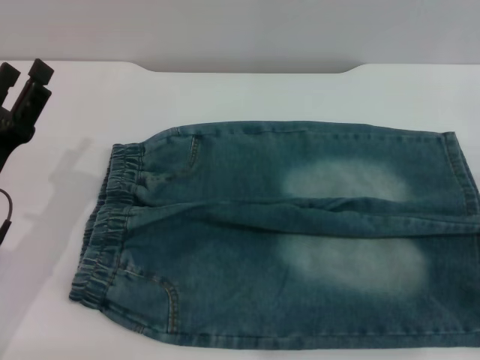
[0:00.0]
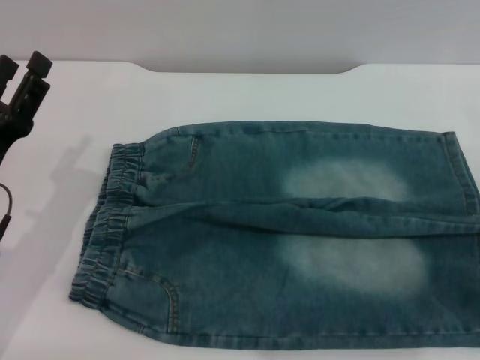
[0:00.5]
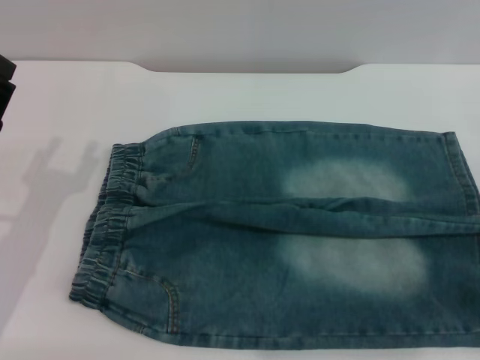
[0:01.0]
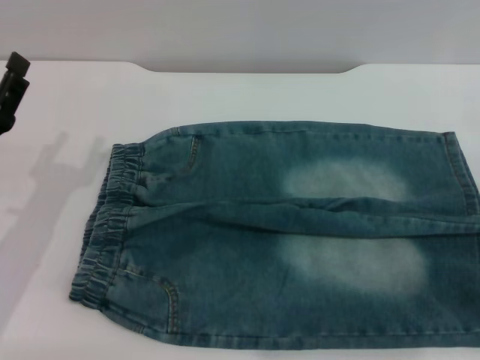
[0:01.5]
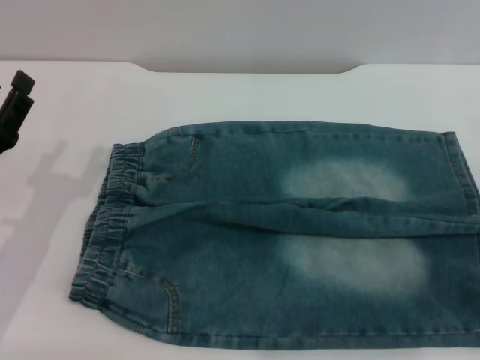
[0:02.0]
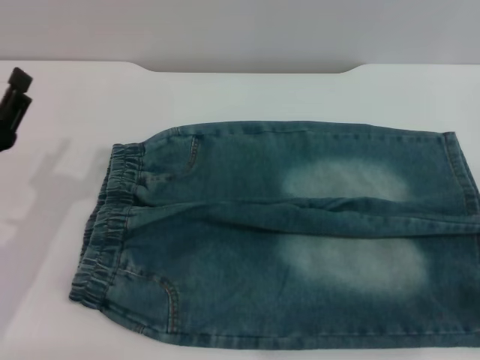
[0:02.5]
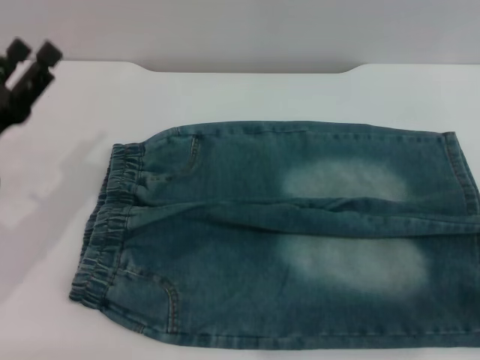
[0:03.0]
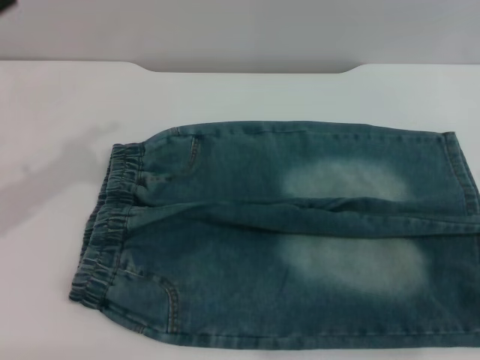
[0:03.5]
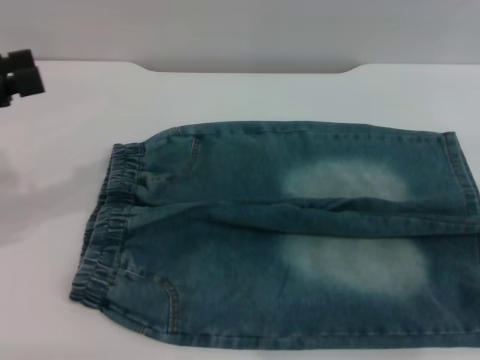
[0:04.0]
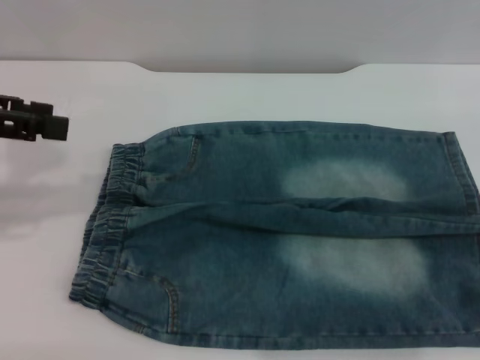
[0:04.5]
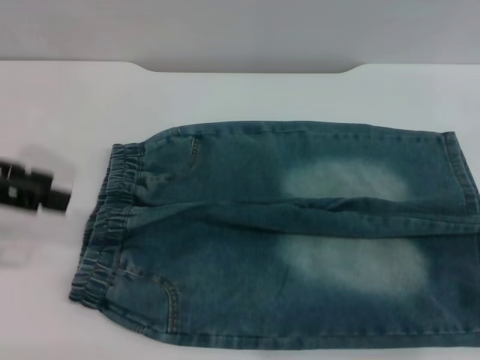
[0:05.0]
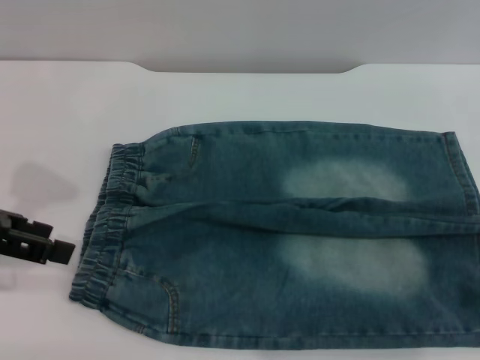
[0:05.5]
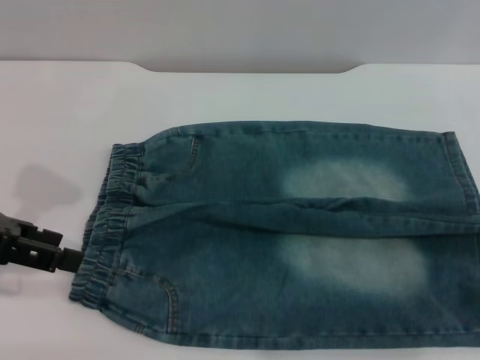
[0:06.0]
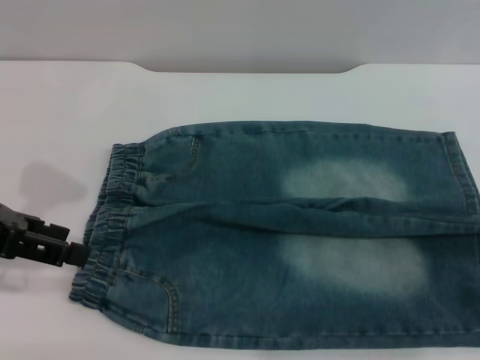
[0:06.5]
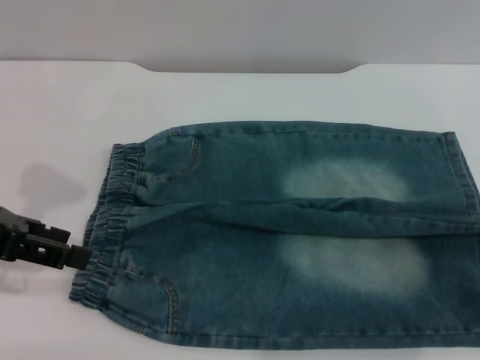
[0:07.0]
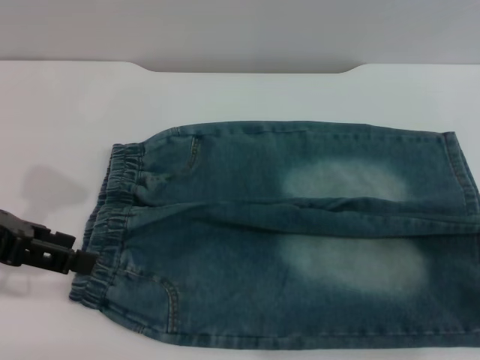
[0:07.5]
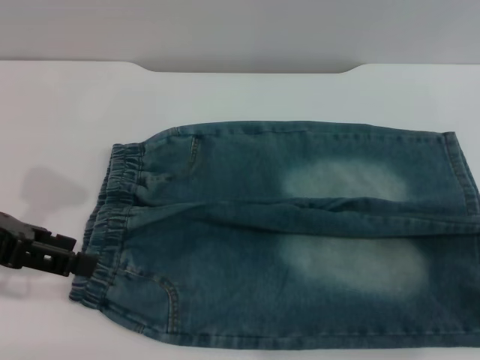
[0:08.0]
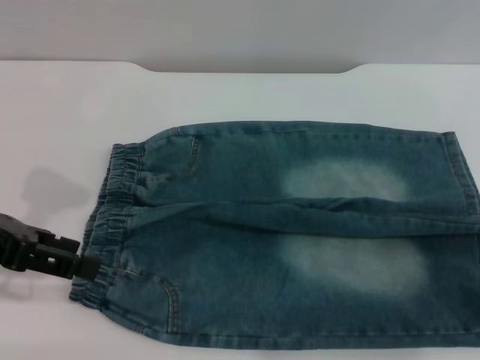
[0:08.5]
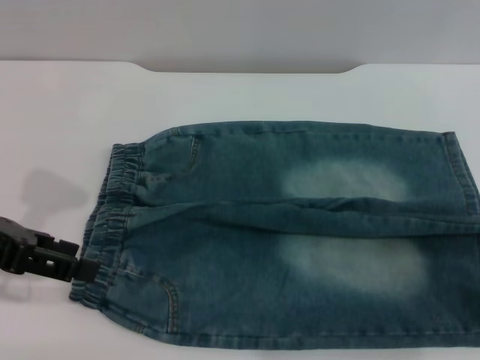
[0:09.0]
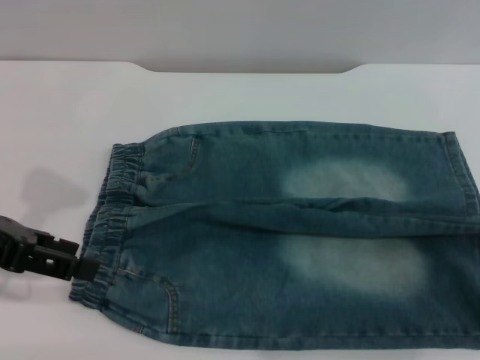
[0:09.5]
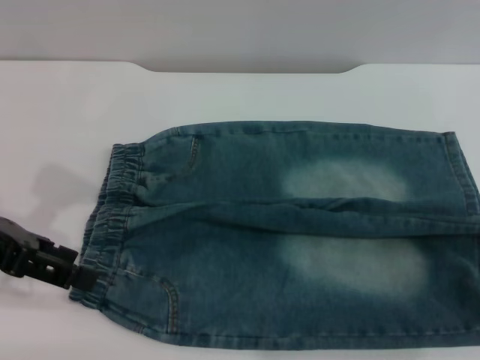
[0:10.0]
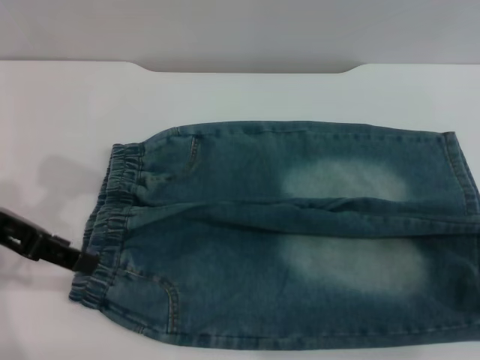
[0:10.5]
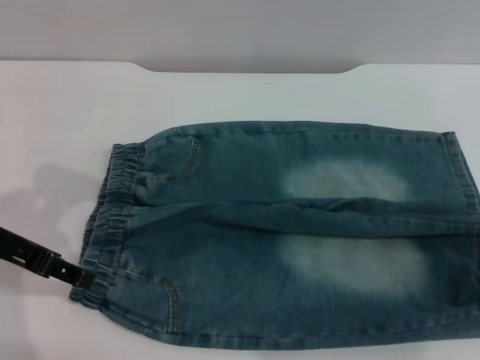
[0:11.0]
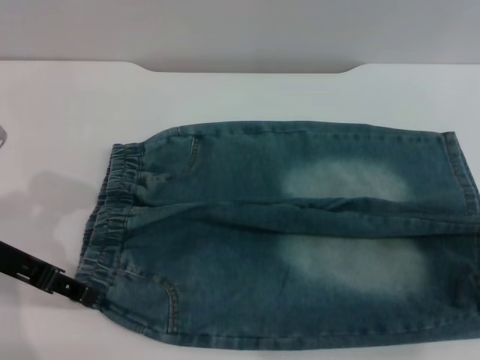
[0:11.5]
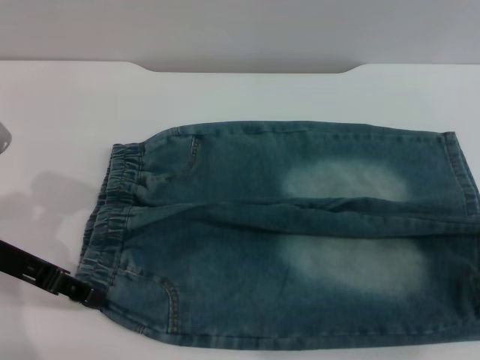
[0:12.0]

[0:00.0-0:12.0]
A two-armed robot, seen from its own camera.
0:00.0 to 0:02.0: The grippers stay close to where they were, moving slightly.
0:02.0 to 0:04.0: The left gripper is displaced upward and to the left by about 20 cm.
0:10.0 to 0:12.0: The left gripper heads downward, covering about 5 cm.

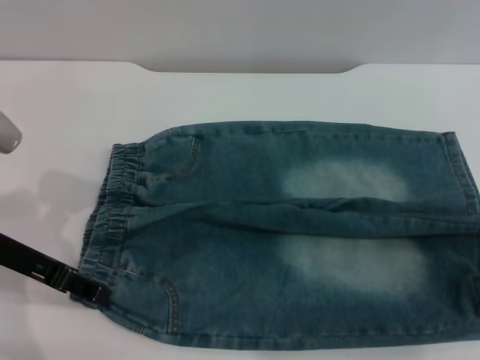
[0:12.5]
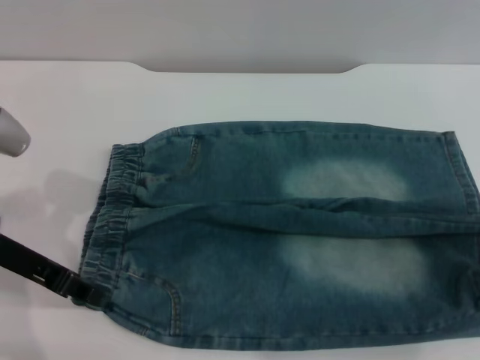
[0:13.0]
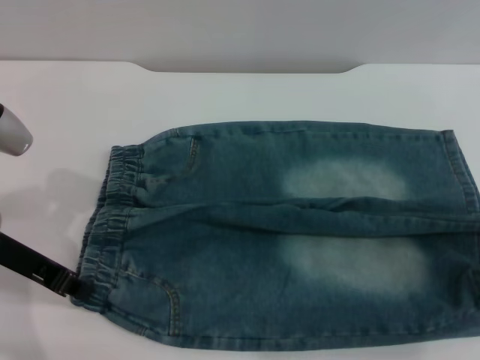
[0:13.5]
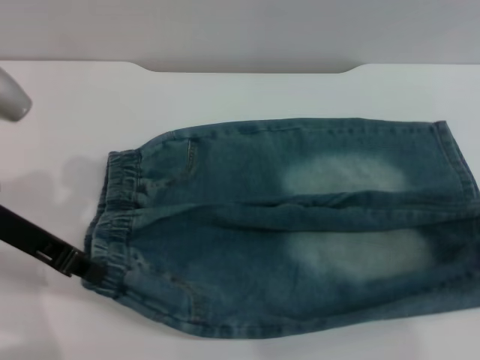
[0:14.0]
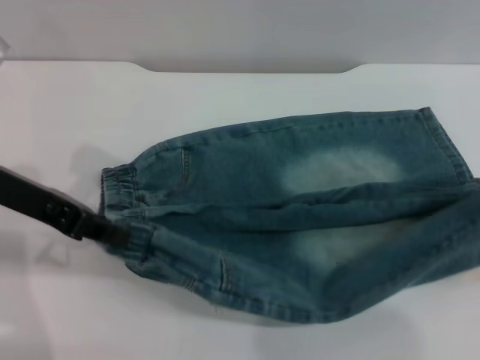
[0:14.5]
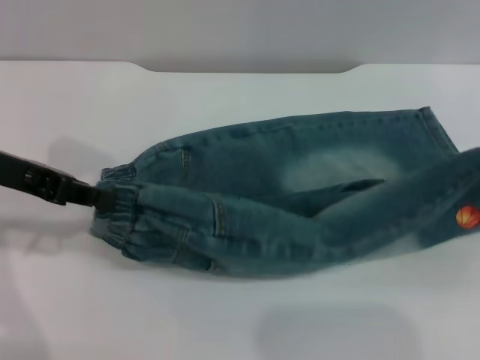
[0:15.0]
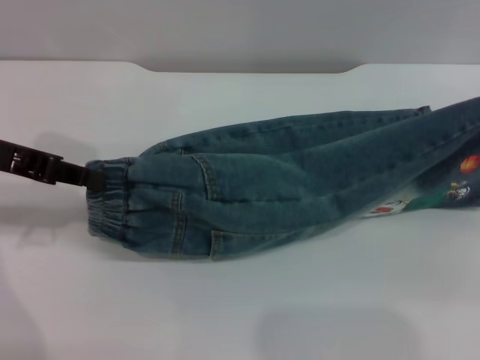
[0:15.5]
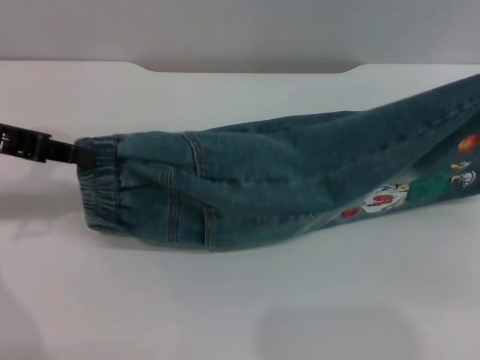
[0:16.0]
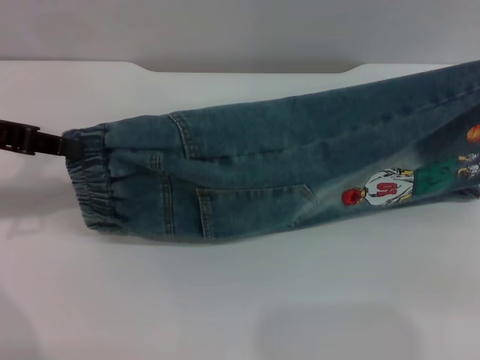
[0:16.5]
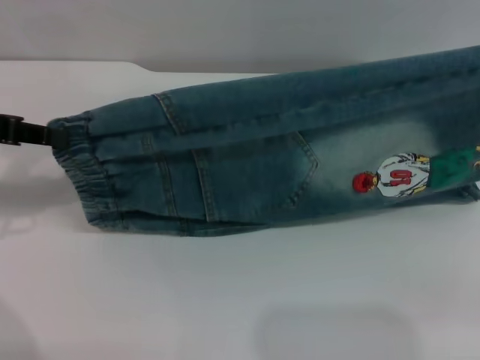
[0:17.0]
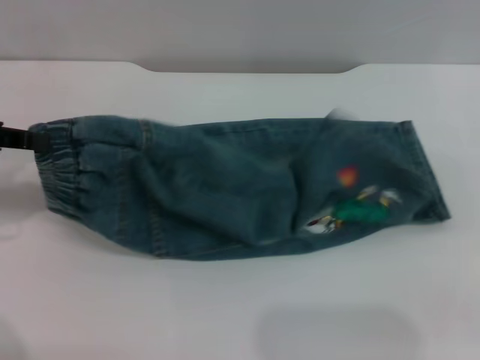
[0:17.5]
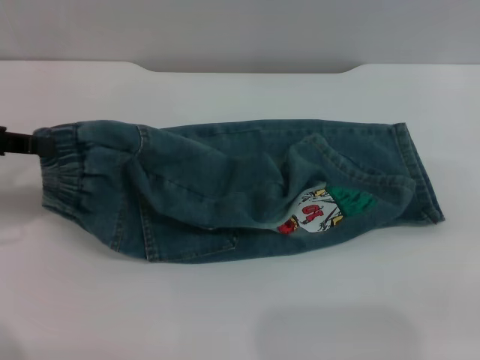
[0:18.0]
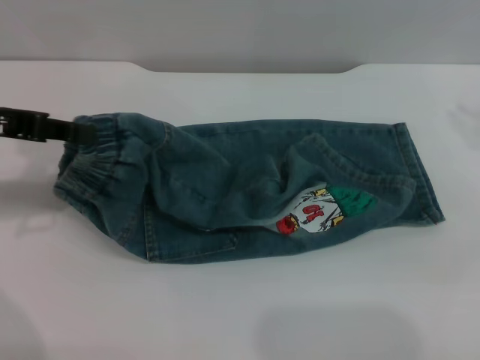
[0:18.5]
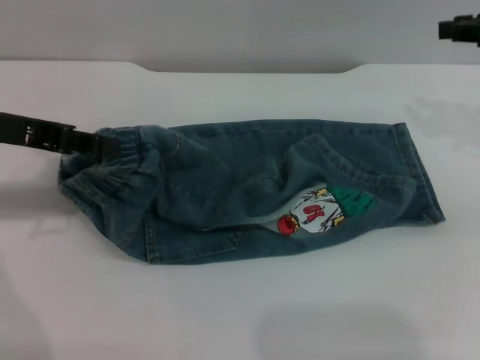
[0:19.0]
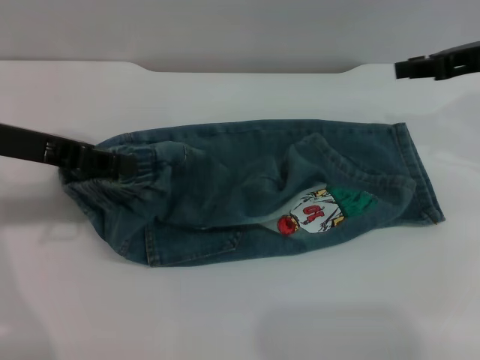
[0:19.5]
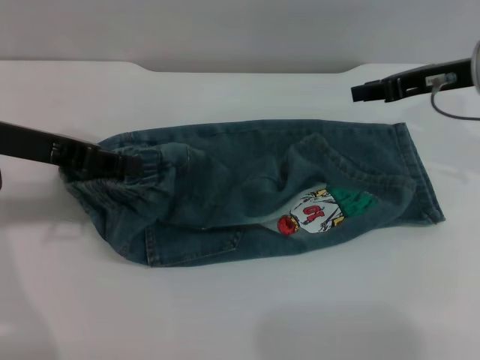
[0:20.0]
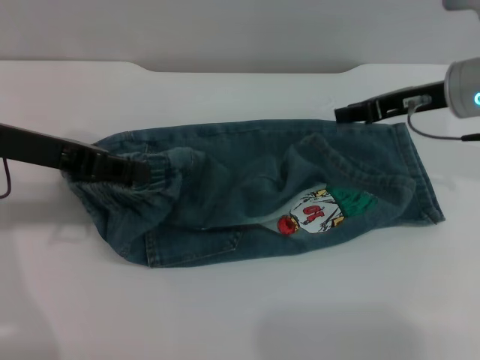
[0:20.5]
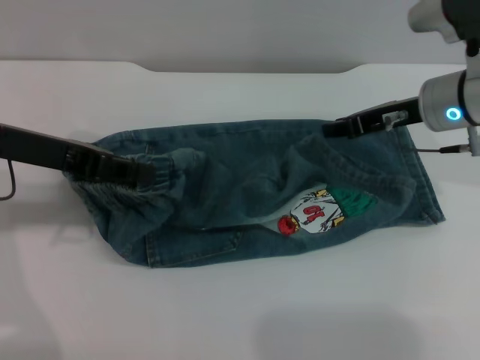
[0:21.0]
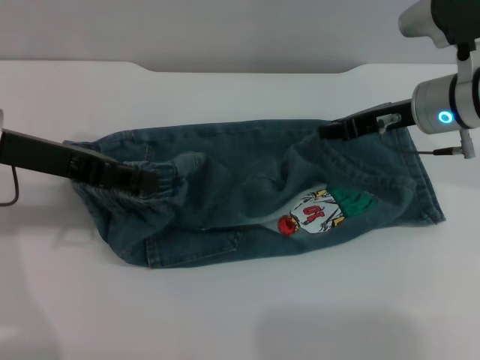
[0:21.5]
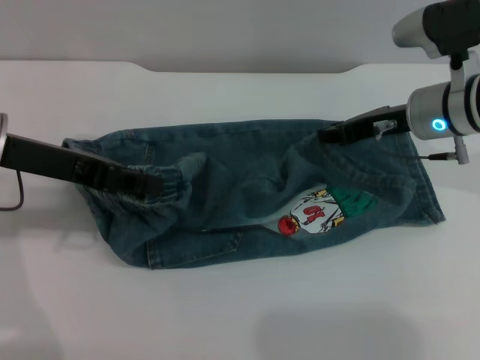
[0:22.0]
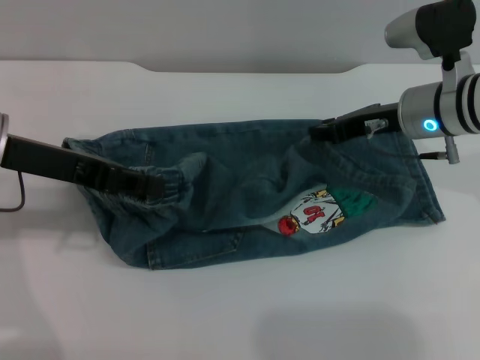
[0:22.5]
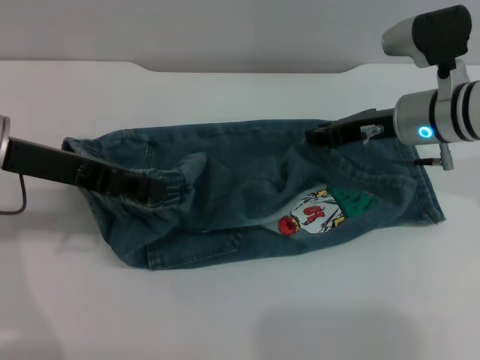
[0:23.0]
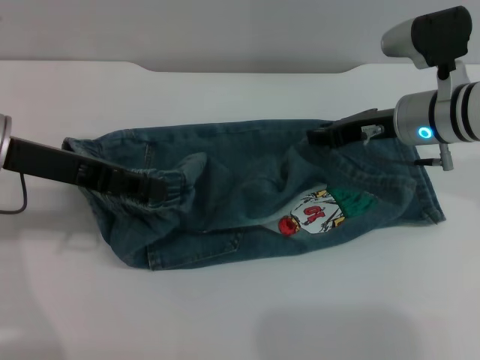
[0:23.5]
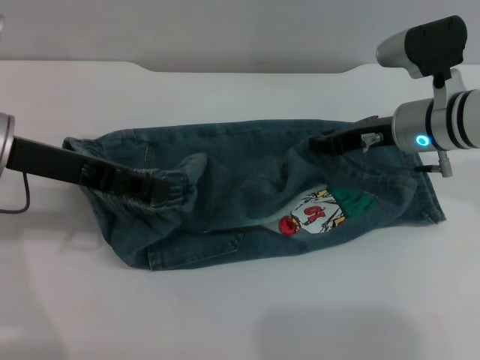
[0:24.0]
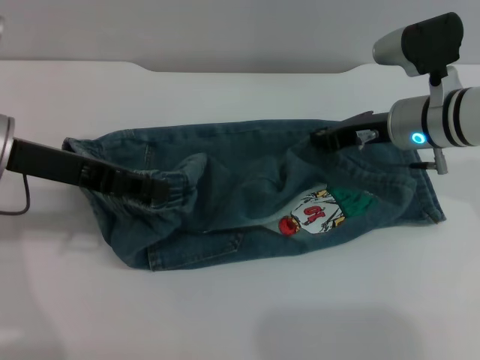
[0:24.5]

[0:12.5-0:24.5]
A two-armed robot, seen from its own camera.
0:12.5 to 0:14.5: The left gripper goes roughly 5 cm upward, and closes its fingers. The right gripper changes place by approximately 5 cm.
0:14.5 to 0:16.5: The left gripper moves to the left, some 5 cm. Meanwhile the right gripper heads upward, covering some 10 cm.
0:18.5 to 0:20.5: The right gripper is displaced to the left, downward and forward by some 15 cm.
0:20.5 to 0:22.5: The right gripper ends up some 5 cm from where it was.
0:22.5 to 0:24.5: The grippers make only small movements.

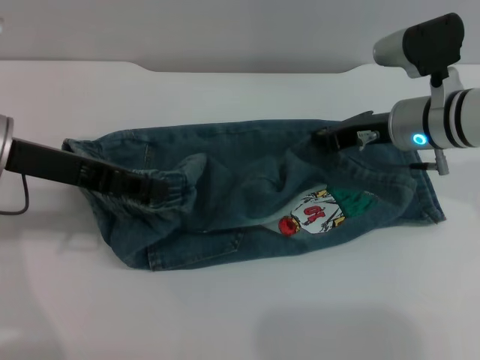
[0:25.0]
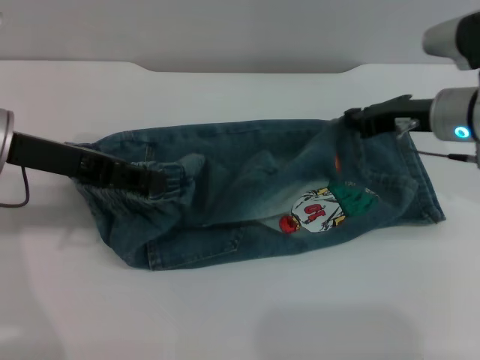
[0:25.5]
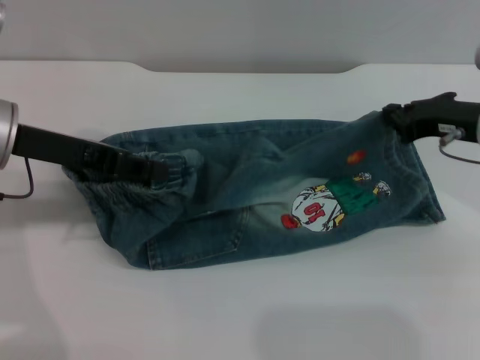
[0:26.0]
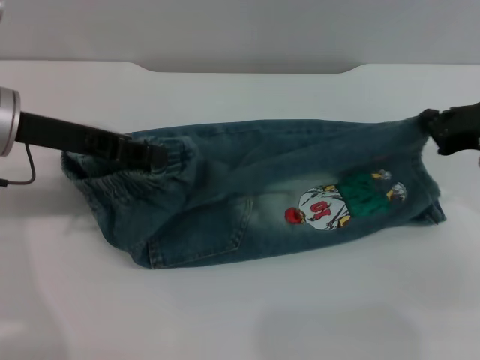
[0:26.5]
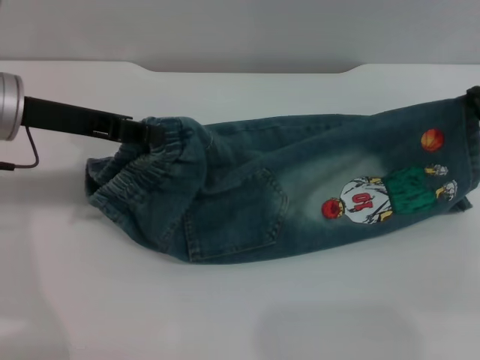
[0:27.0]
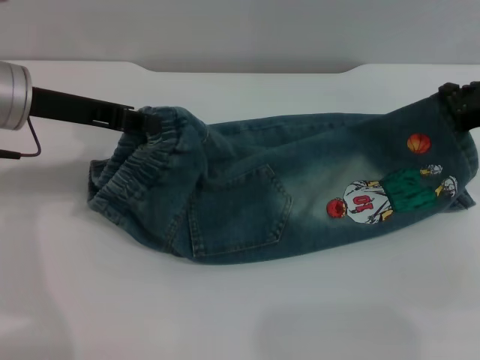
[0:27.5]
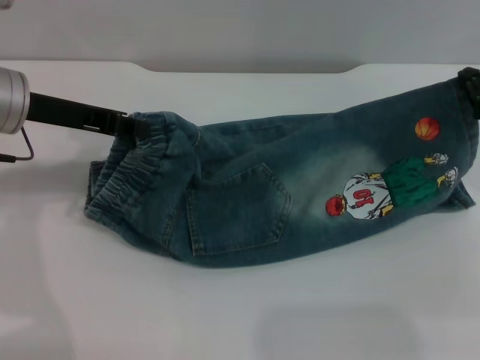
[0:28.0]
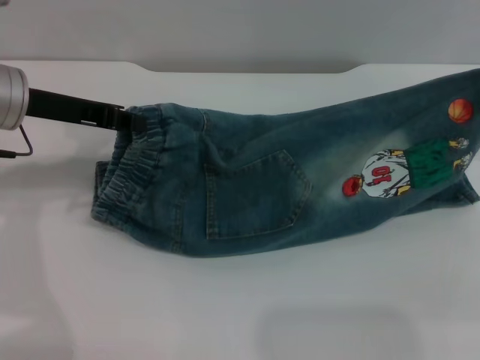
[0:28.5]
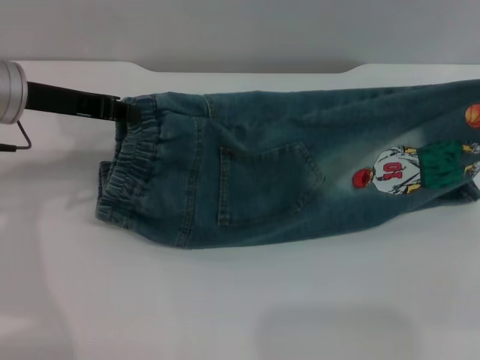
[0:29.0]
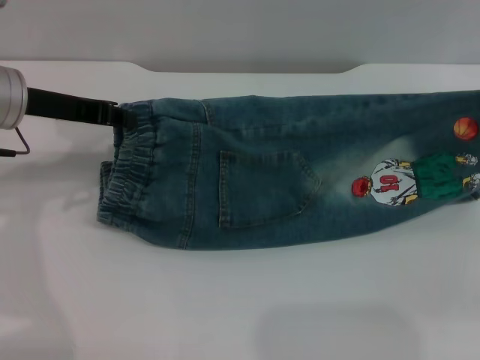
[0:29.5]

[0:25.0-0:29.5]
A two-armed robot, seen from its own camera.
0:25.0 to 0:27.0: The right gripper travels to the right and backward by roughly 15 cm.
0:27.0 to 0:29.5: The grippers make only small movements.
